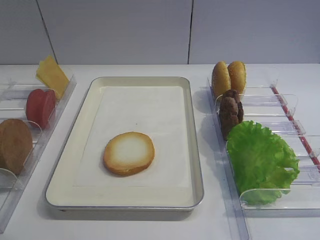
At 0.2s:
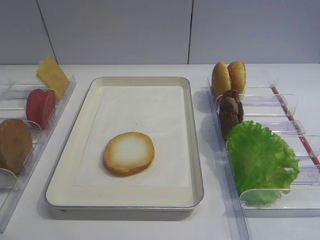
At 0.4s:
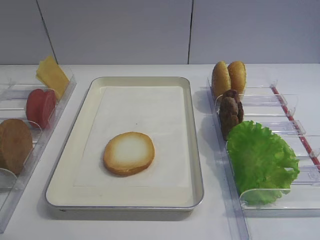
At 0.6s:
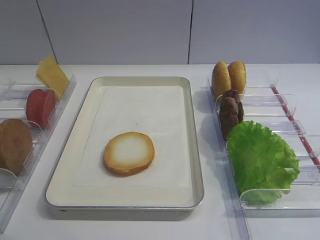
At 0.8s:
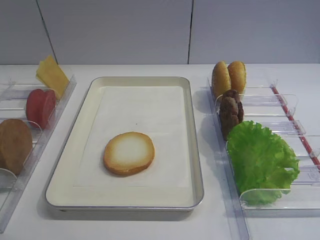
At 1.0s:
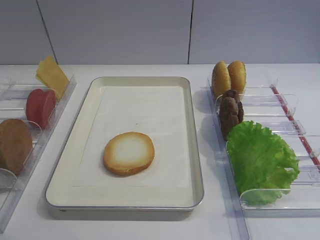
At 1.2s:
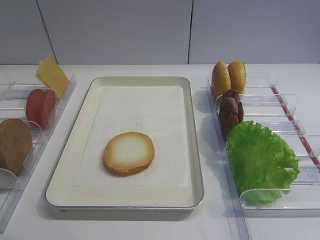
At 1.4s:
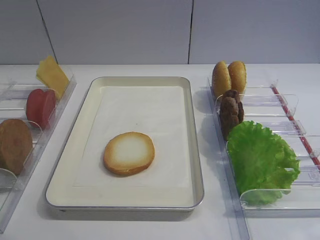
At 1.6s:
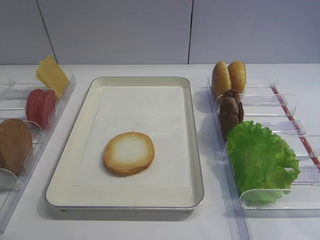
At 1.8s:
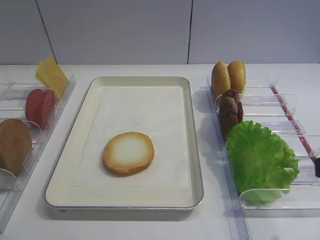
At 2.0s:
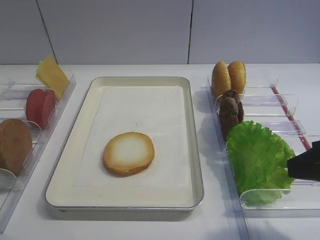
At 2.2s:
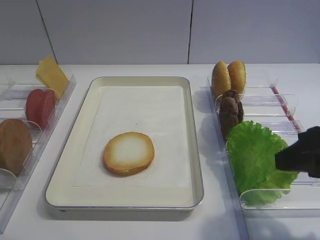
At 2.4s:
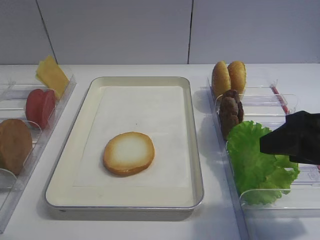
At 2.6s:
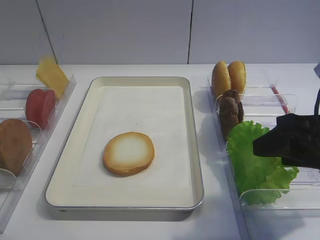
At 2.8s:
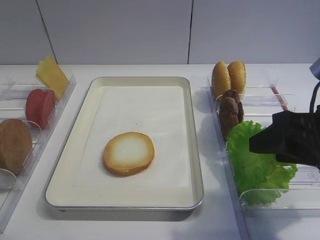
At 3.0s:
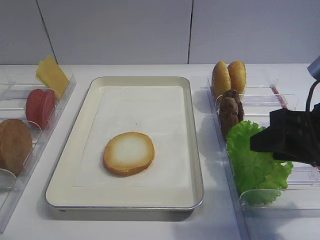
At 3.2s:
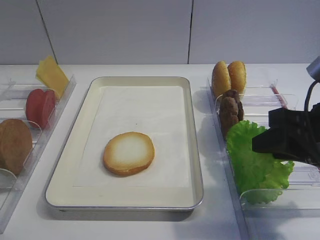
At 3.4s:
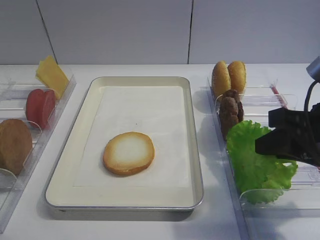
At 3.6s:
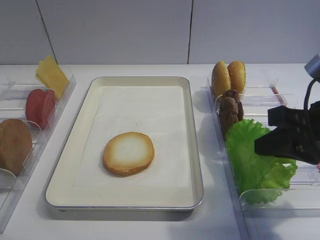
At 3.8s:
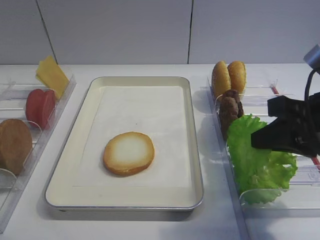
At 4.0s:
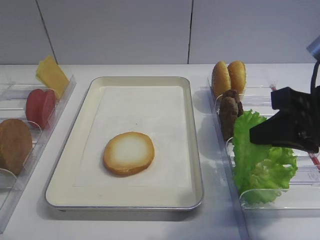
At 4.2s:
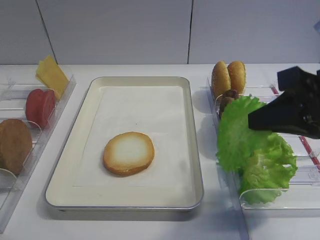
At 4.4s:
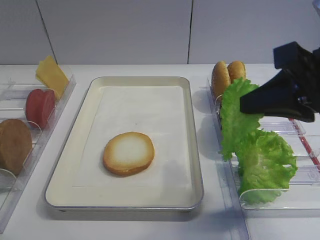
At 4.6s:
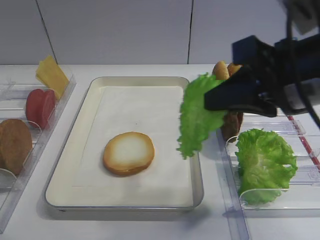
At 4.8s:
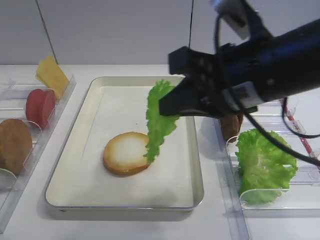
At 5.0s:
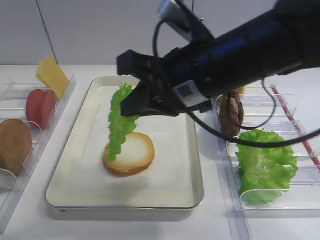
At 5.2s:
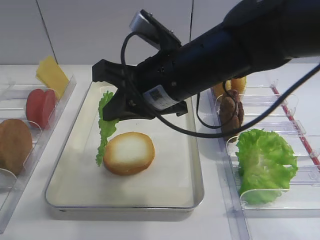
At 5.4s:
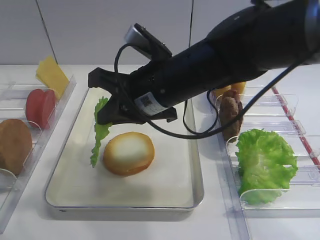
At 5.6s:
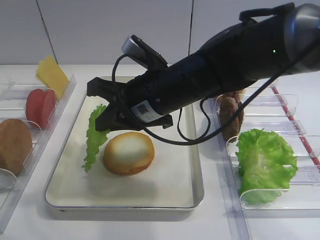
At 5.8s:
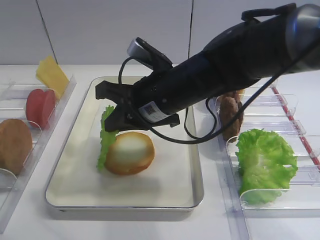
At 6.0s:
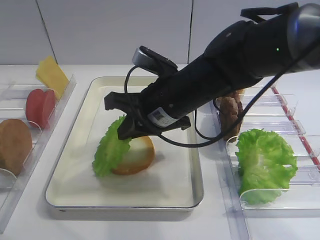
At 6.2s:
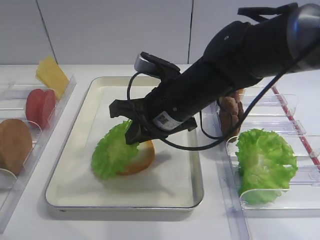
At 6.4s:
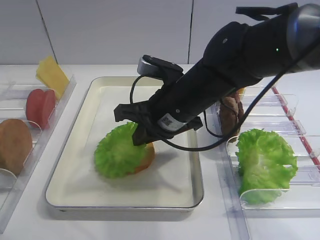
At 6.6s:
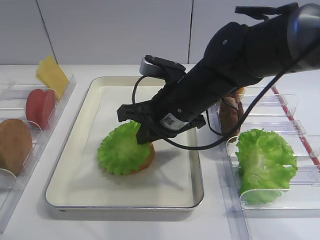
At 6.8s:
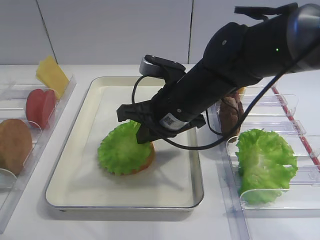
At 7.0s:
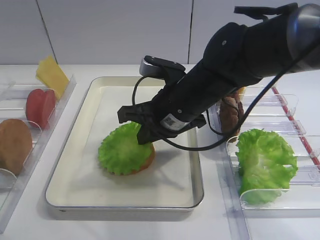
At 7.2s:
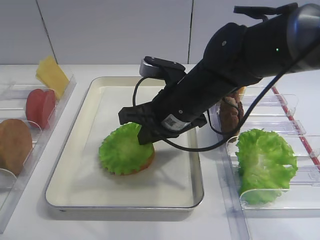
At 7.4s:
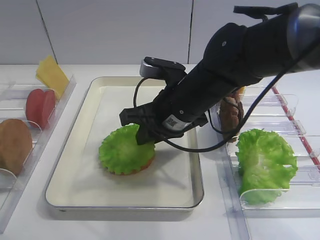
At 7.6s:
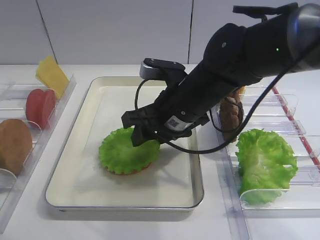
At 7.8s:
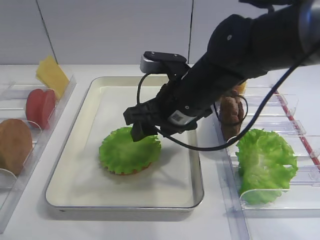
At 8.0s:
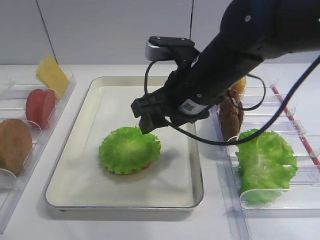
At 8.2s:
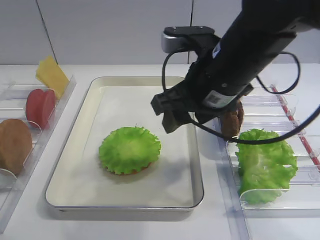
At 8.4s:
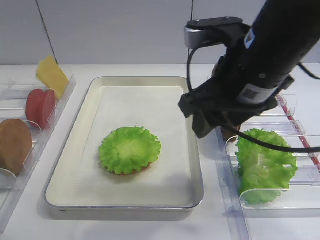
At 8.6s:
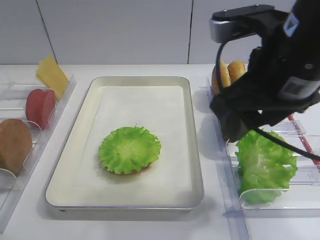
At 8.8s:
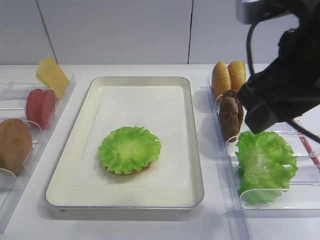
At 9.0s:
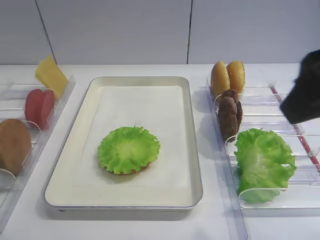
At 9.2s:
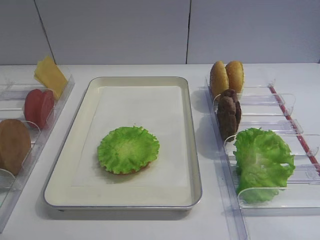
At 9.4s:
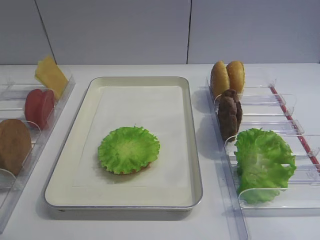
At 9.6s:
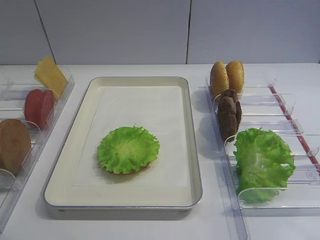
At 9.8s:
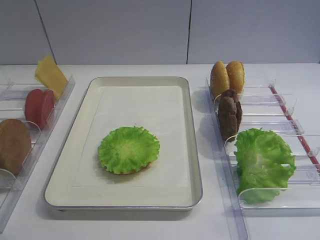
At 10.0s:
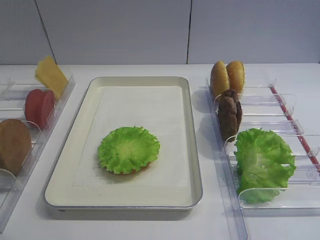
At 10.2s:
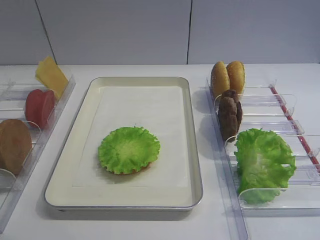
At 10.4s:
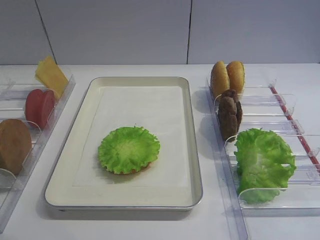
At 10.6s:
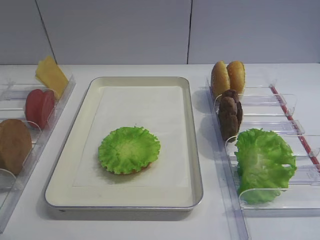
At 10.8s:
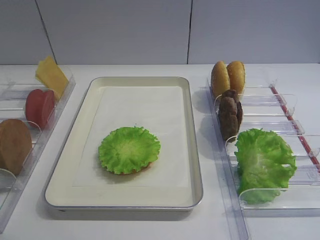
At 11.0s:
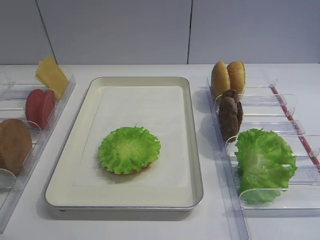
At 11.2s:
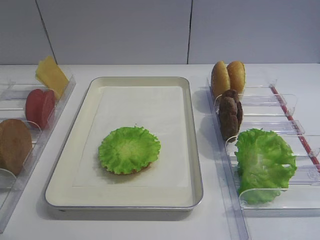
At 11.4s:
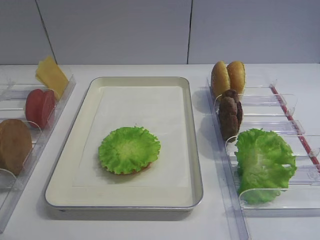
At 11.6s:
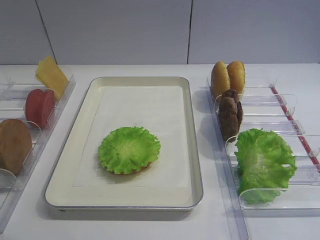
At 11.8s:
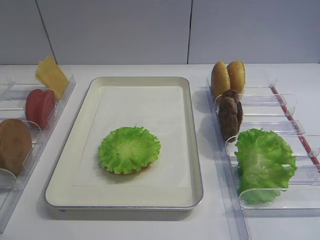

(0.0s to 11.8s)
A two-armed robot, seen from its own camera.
Step, 0.0s - 4.2s: Pick up the lettuce leaf with the right gripper.
Step, 4.4s - 7.8s: Place the lettuce leaf on the bread slice with the right gripper.
1.4s - 3.0s: The right gripper shifts about 15 cm forward.
3.0s - 4.4s: The right gripper goes approximately 5 cm upward, and closes its fingers.
4.4s - 6.0s: The right gripper shifts roughly 20 cm to the left, forward and downward.
6.0s - 7.4s: The grippers make only small movements.
7.4s - 8.8s: The right gripper travels upward, to the right and backward by approximately 20 cm, and opens up.
8.8s - 10.4s: The right gripper moves backward and to the right, approximately 25 cm.
10.4s - 11.8s: Both grippers stay put.

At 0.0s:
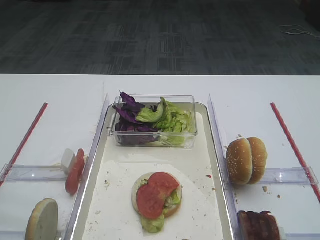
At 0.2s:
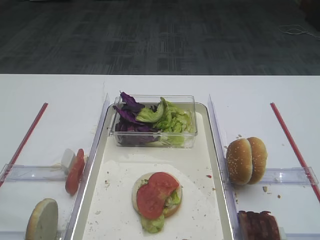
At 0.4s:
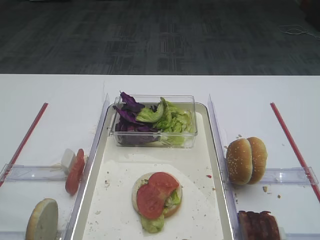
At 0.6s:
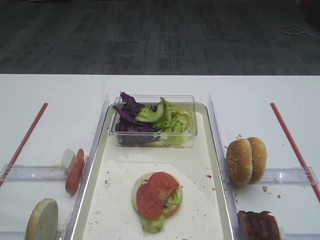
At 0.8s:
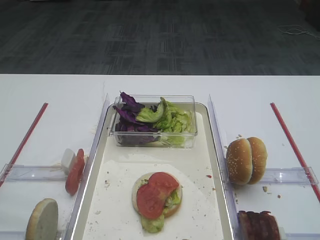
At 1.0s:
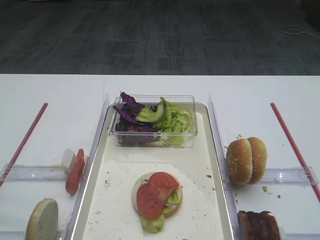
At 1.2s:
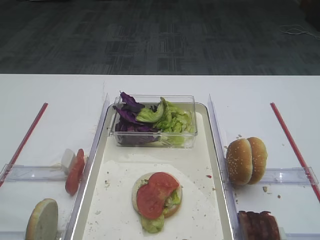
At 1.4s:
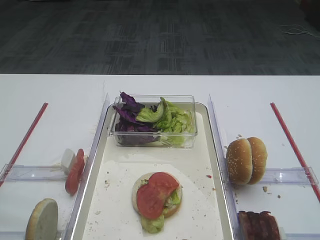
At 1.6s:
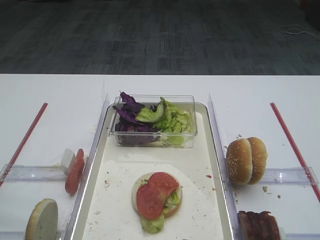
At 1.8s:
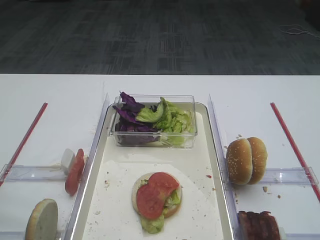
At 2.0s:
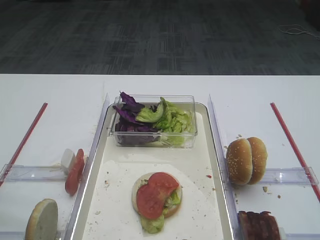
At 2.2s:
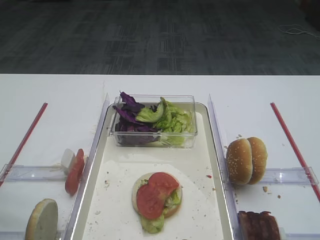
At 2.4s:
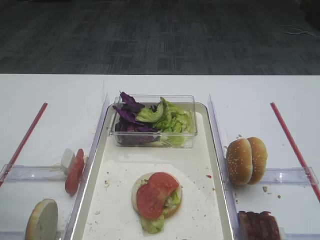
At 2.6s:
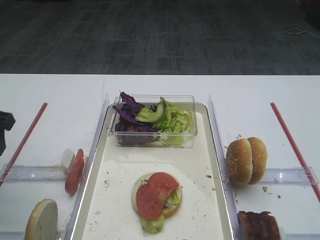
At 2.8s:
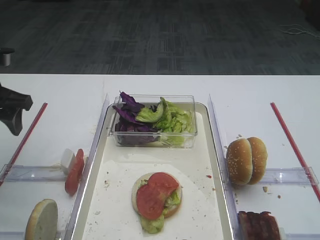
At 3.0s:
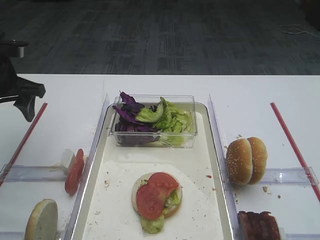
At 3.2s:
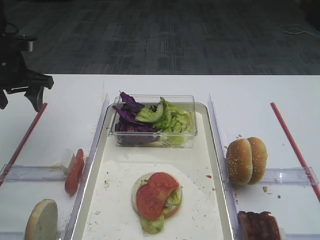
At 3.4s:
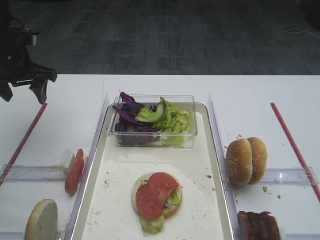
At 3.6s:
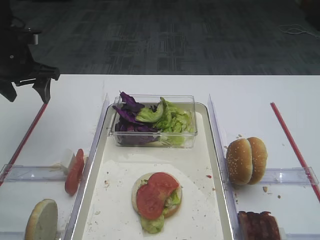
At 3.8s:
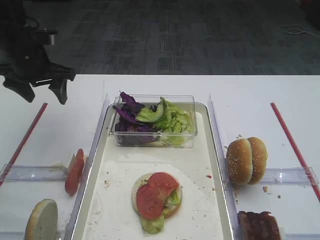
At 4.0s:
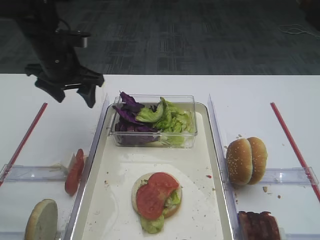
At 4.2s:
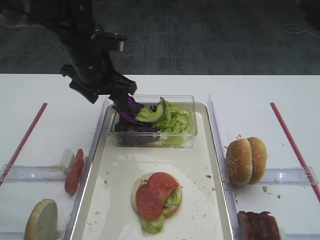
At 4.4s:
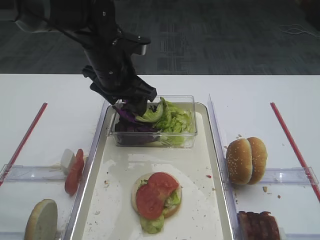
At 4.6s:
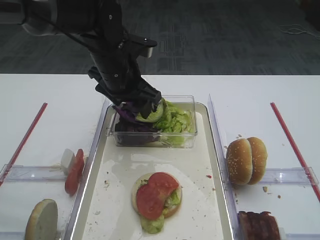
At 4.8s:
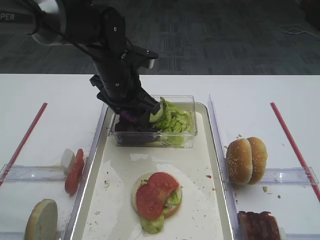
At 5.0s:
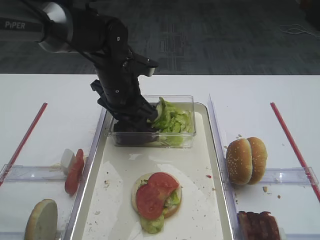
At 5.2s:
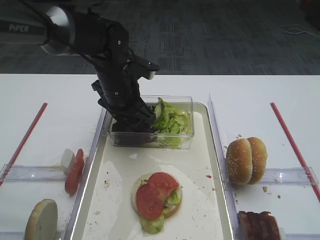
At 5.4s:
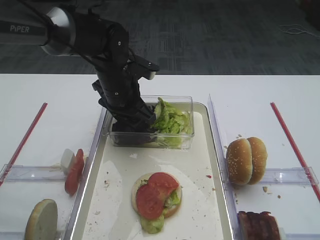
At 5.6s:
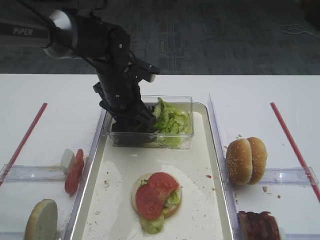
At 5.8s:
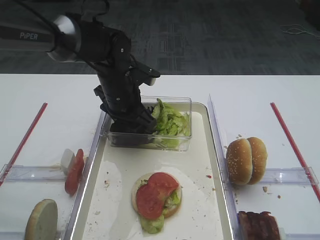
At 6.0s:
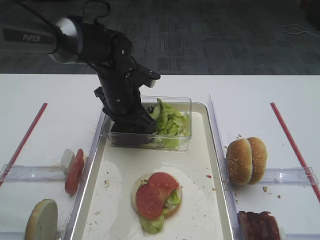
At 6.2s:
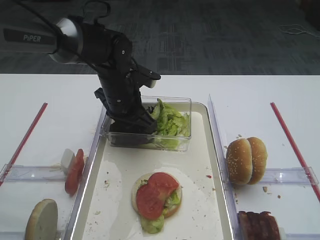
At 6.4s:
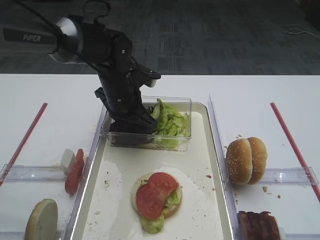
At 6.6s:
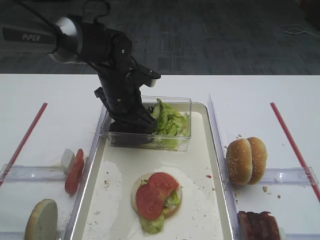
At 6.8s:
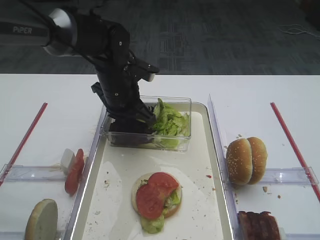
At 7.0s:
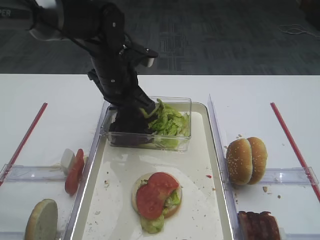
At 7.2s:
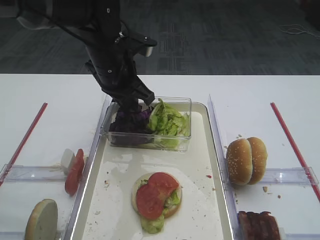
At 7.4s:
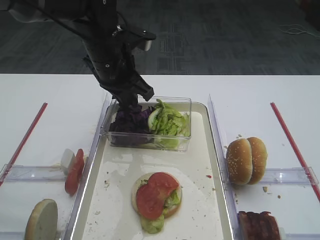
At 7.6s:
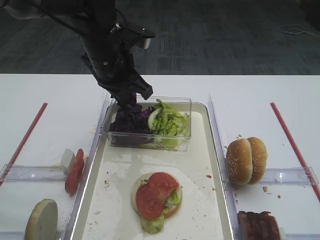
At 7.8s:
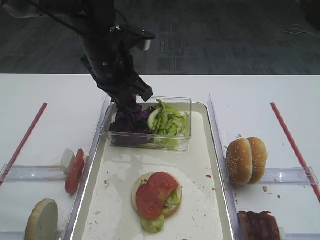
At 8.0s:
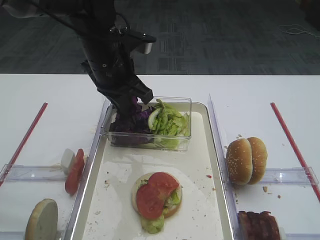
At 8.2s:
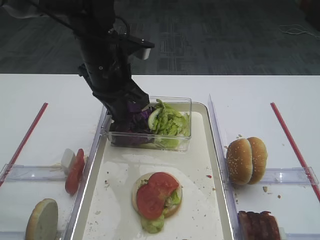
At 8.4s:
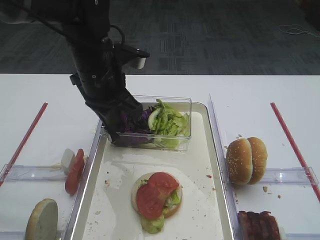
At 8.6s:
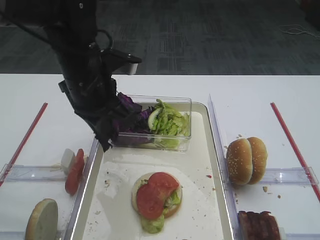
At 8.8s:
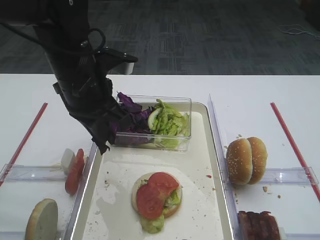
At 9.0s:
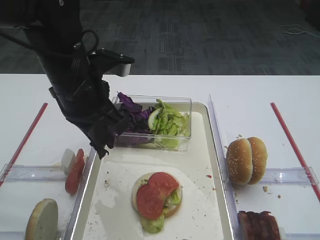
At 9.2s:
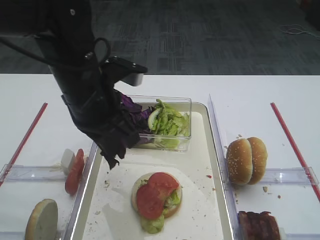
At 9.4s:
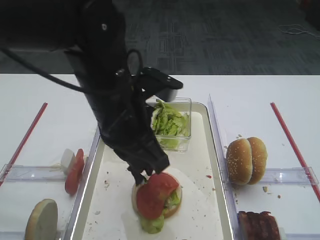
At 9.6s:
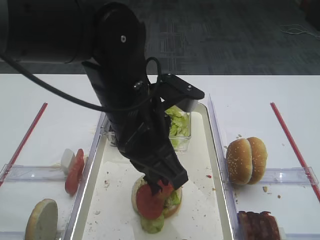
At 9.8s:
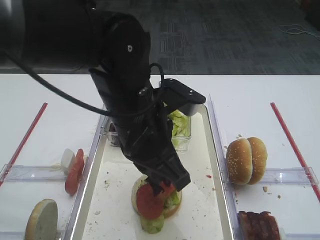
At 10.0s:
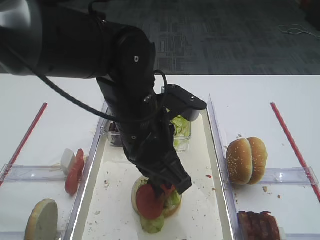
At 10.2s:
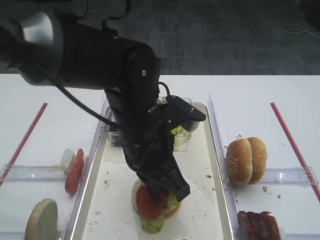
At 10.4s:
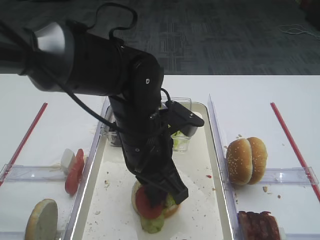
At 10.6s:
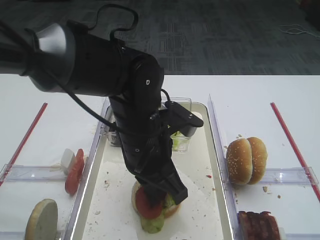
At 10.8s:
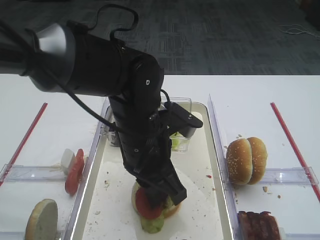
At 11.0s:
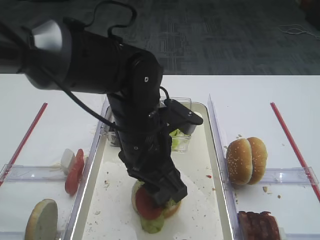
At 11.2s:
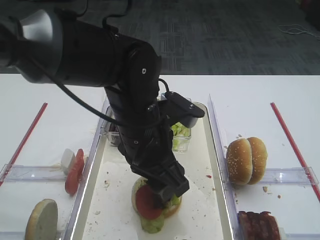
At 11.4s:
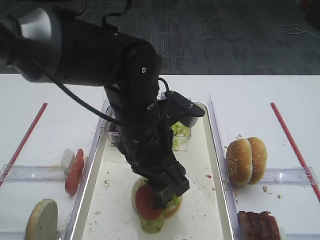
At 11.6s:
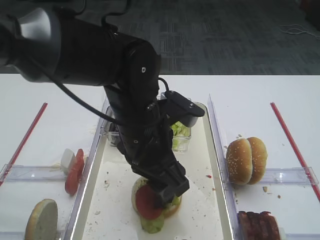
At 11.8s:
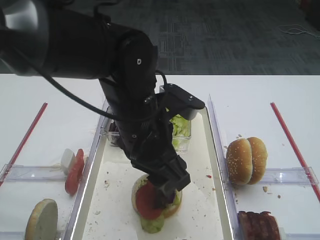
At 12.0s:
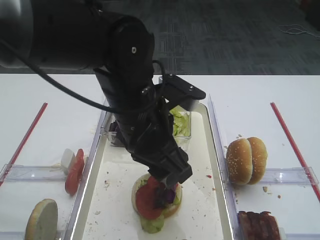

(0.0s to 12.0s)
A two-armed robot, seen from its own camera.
Step, 0.0s - 8.2s: Pick up the purple cabbage with the left gripper.
1.6s - 3.0s: The left gripper moves forward, approximately 25 cm.
3.0s - 4.4s: The left gripper is displaced to the right by some 20 cm.
4.4s - 6.0s: The left gripper goes approximately 5 cm downward, and closes its fingers.
6.0s - 7.6s: The left gripper shifts some 10 cm upward, and closes.
7.6s - 9.0s: The left gripper shifts roughly 10 cm backward.
9.0s - 10.4s: The left gripper goes approximately 10 cm to the right and downward.
10.4s - 12.0s: The left gripper opens up.
